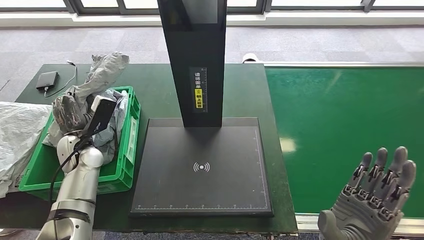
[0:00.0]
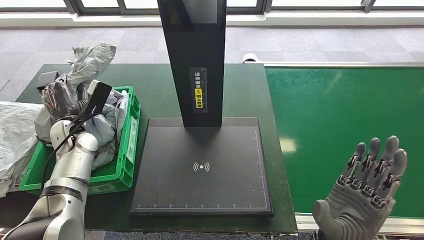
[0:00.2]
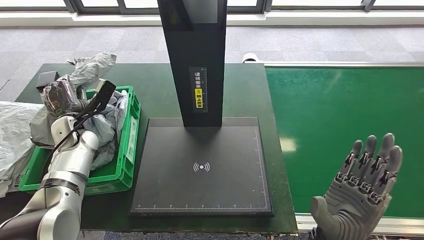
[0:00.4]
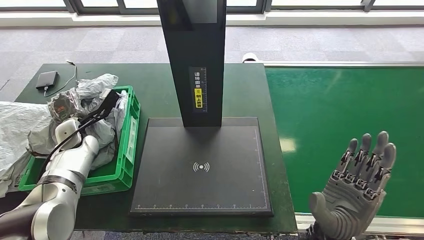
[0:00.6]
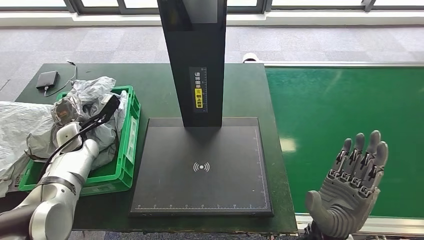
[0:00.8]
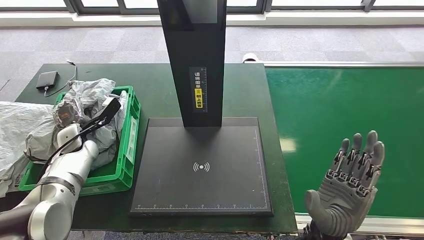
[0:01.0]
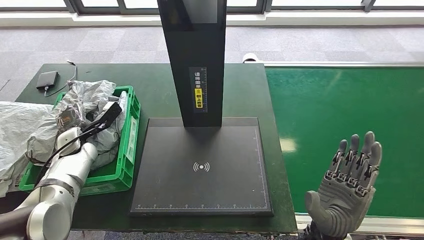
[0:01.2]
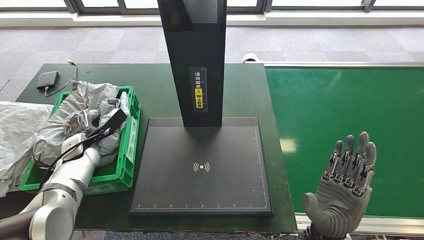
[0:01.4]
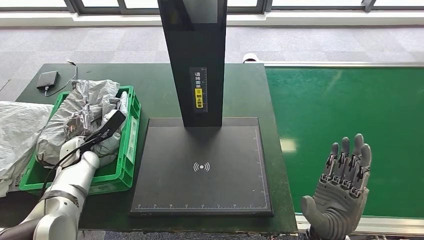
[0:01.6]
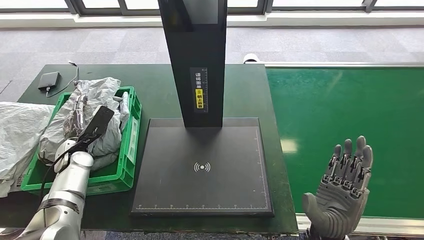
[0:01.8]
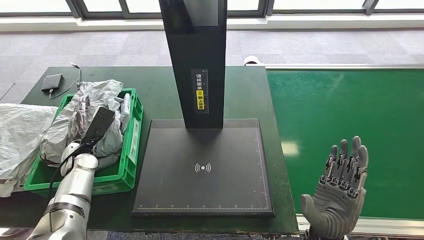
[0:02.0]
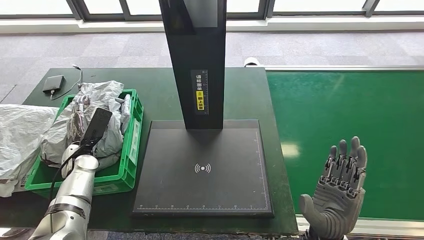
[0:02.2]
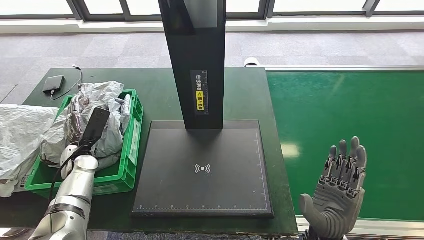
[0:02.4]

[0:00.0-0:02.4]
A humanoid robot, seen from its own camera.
Step, 0.0 to 2.4 s: Place the parcel into the delivery box.
0.0 to 1.2 s: The left hand ends up approximately 5 cm from where it was.

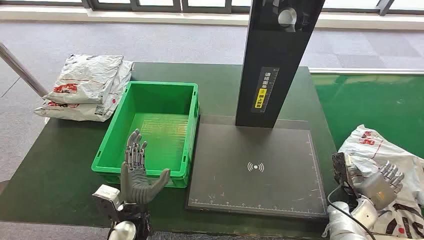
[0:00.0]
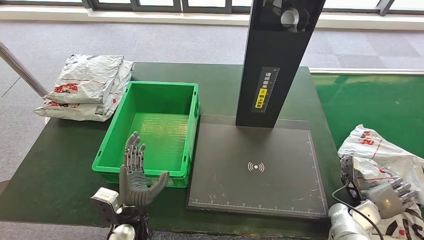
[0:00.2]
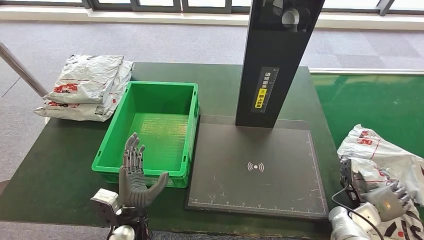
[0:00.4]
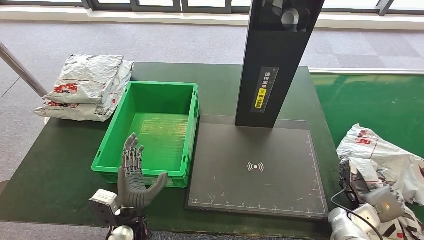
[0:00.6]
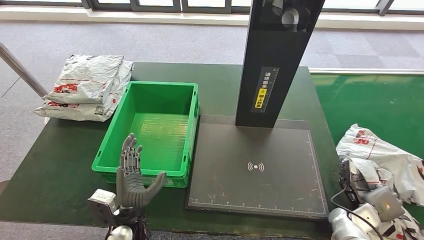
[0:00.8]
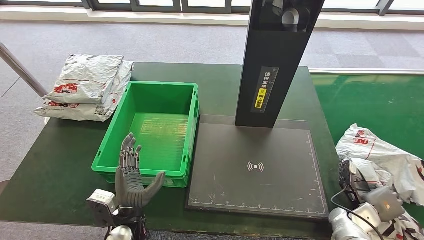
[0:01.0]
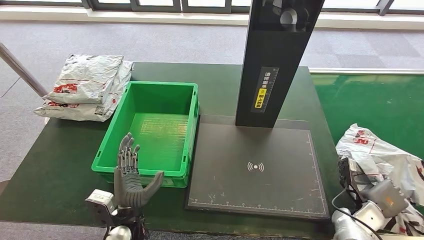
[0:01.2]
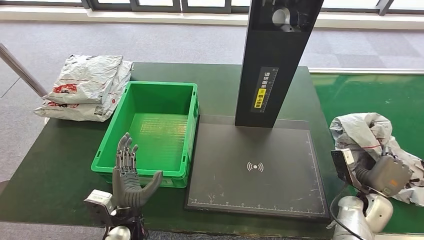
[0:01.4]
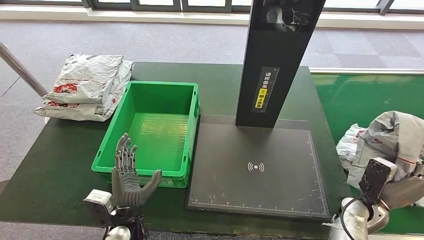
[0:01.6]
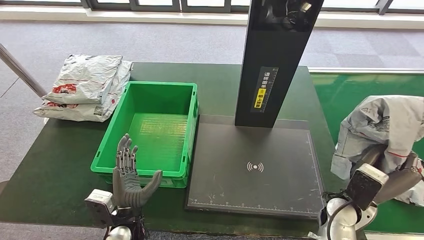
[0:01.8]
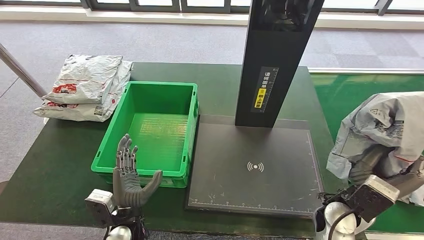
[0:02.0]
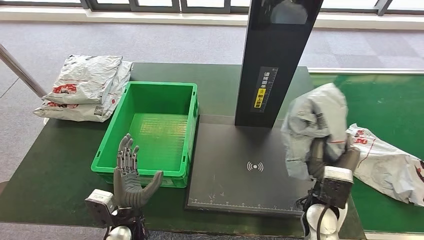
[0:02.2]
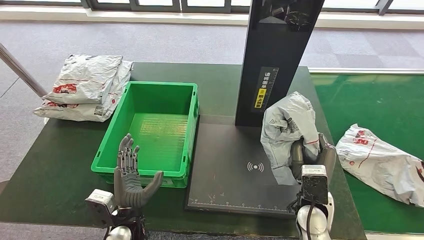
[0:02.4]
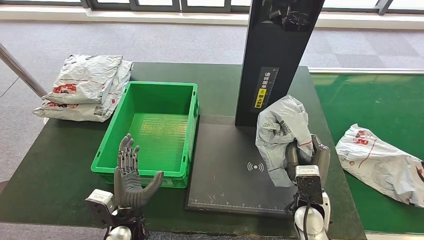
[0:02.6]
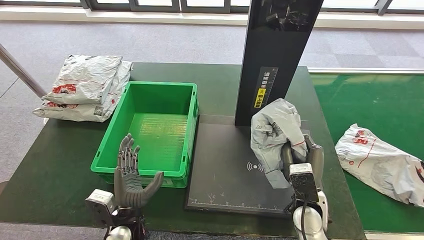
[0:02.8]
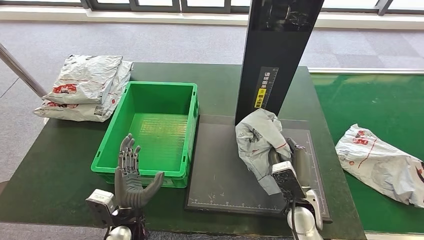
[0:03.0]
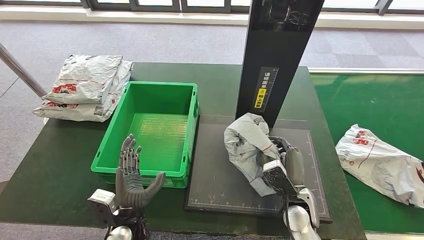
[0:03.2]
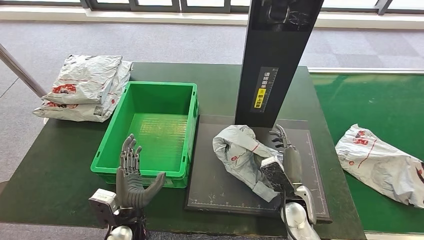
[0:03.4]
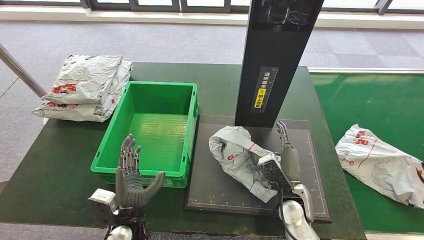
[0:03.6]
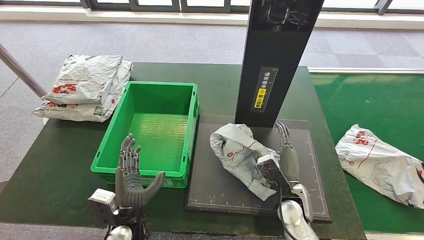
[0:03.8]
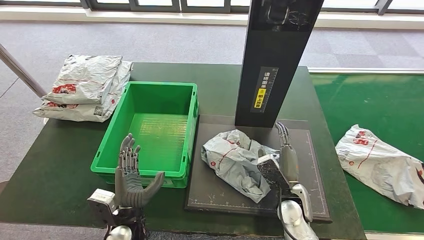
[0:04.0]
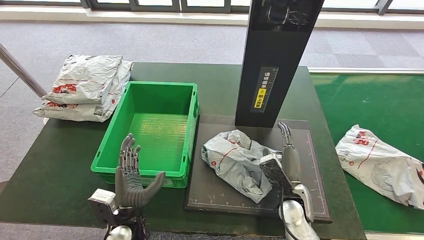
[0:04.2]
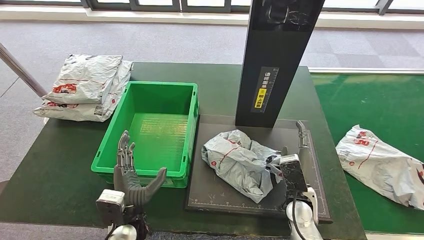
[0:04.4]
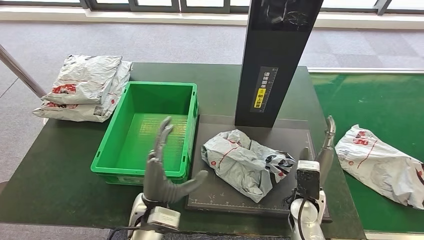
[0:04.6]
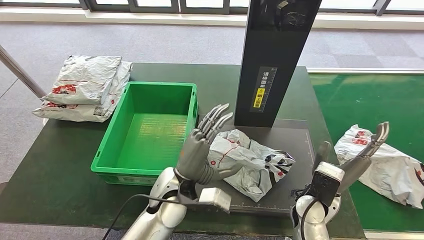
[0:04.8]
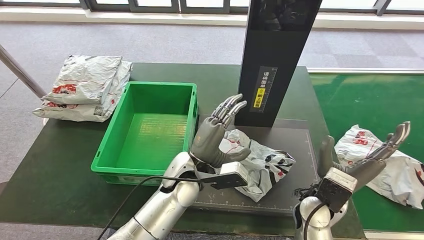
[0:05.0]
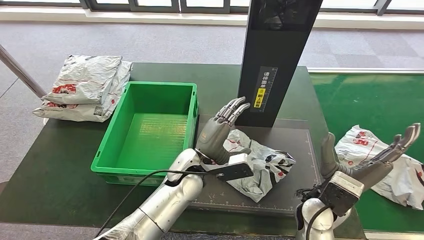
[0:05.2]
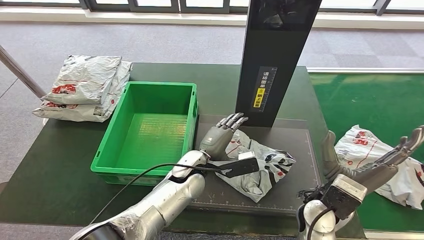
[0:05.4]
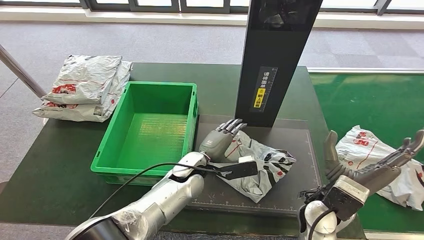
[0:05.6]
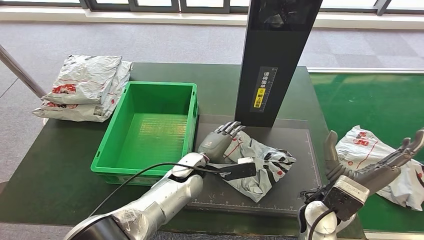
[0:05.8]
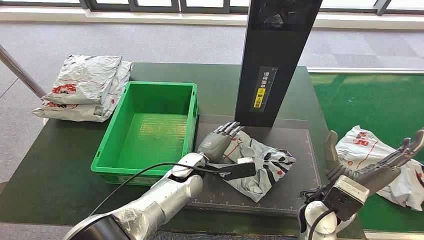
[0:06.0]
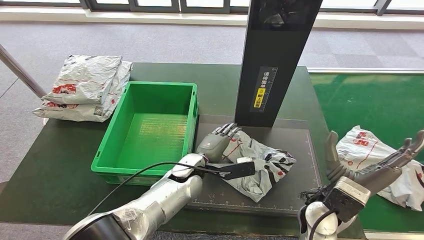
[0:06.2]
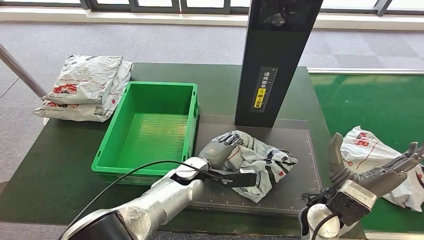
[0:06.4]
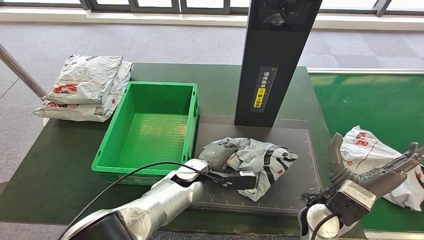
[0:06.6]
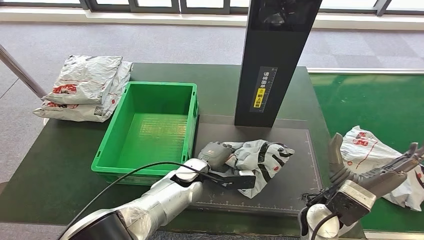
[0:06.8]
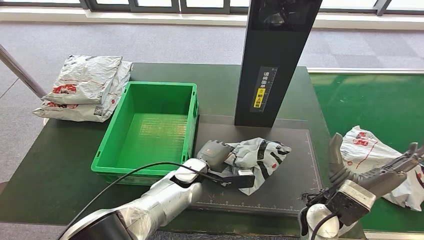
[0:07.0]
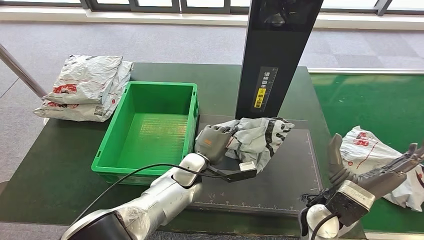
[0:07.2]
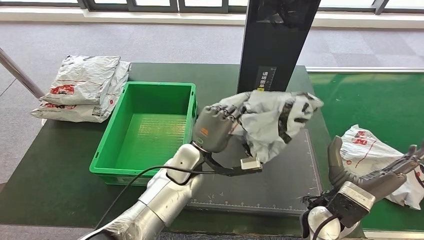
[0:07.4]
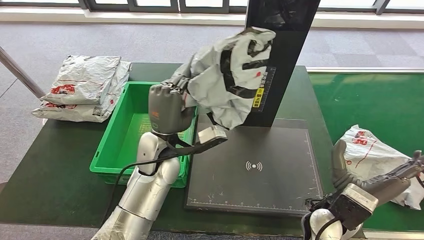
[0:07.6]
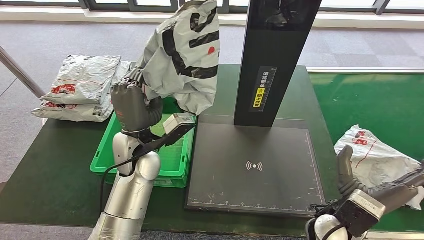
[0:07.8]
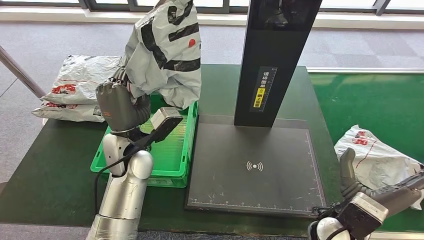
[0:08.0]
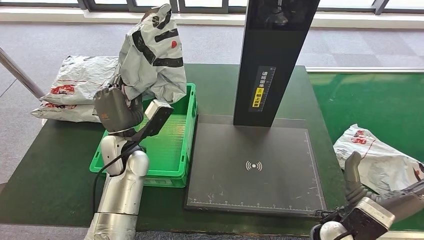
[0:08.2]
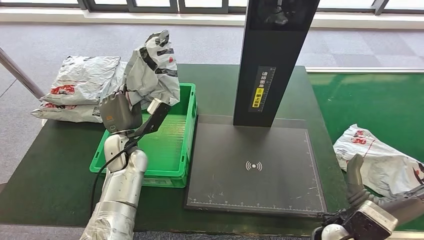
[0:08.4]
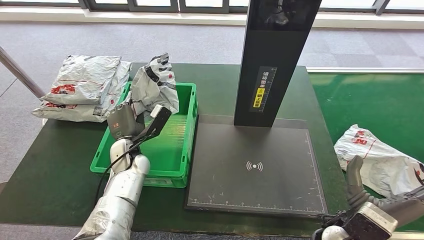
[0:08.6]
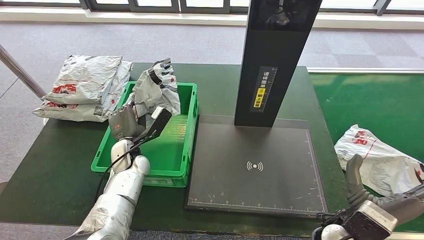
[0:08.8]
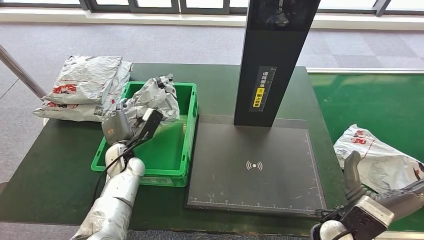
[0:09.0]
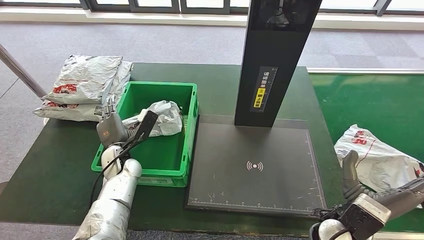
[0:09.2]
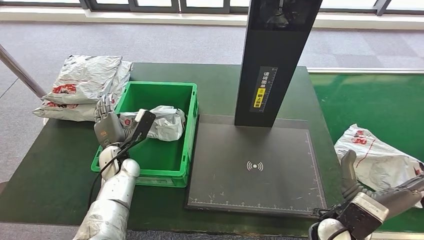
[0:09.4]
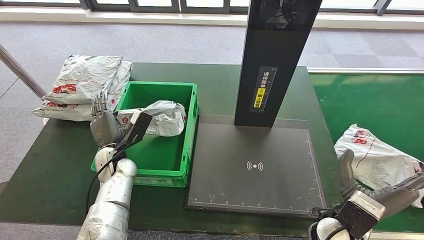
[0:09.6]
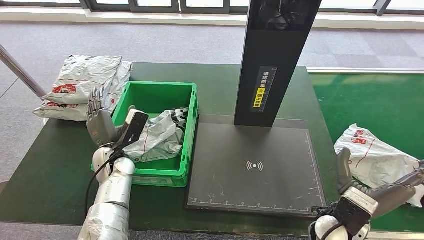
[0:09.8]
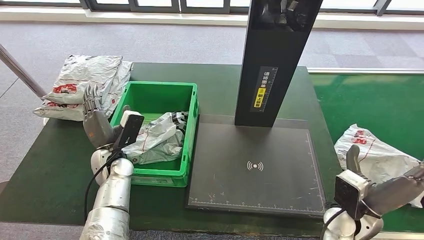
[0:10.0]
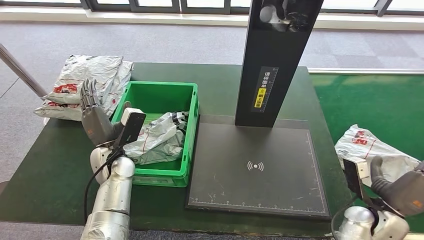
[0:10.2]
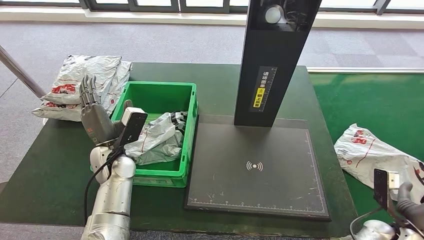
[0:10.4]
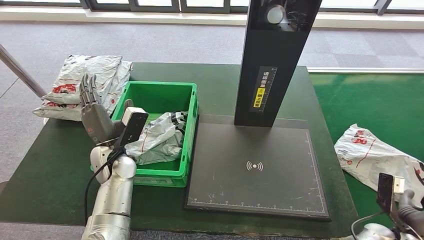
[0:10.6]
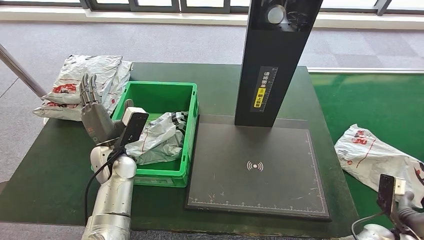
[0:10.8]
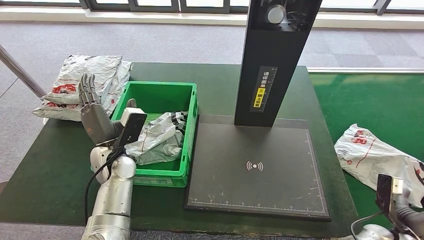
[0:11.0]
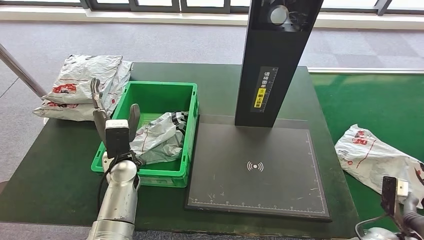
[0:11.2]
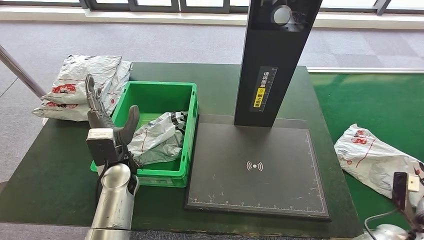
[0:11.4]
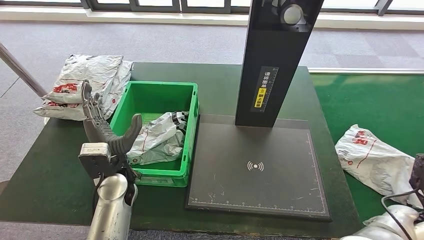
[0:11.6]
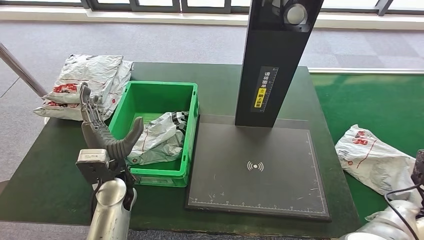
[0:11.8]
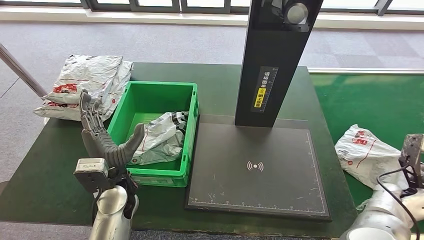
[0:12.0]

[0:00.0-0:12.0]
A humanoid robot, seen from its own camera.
Step, 0.0 to 2.4 s: Take the parcel off the conveyor belt.
Step, 2.6 to 4.2 s: Place the parcel onto the inbound machine.
Step, 4.4 to 7.2 s: Pick up the parcel from the inbound machine.
Step, 7.6 to 9.2 s: Put the parcel inside the courier box.
1.6 to 3.0 s: The right hand shifts approximately 15 cm to the left.
3.0 to 4.4 s: The hands stay close to where they were, moving slightly.
10.4 to 12.0 s: The left hand shifts about 5 cm backward. Meanwhile the right hand moves forward and to the right, approximately 10 cm.

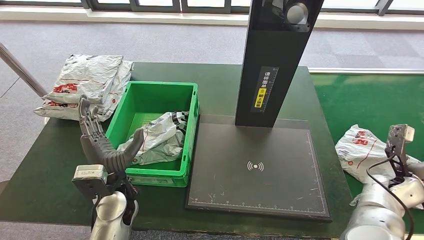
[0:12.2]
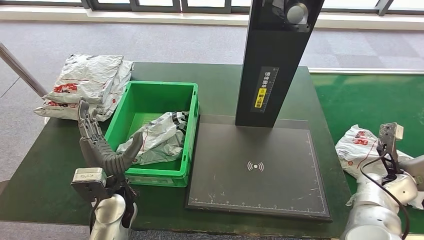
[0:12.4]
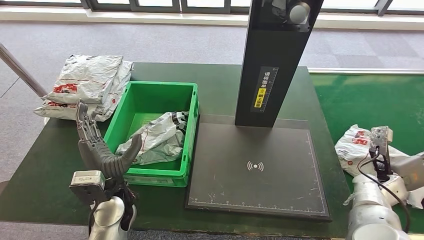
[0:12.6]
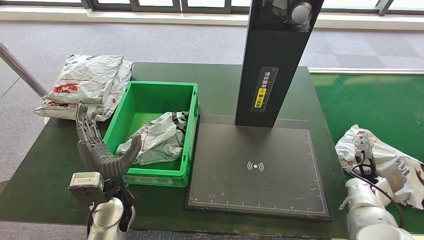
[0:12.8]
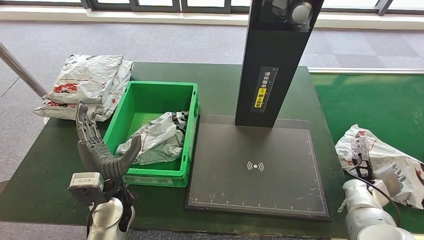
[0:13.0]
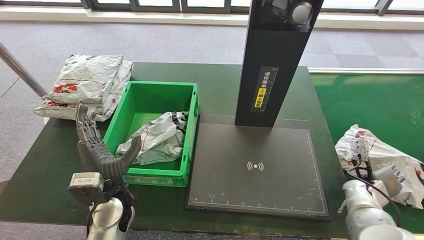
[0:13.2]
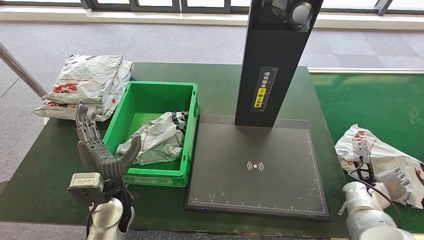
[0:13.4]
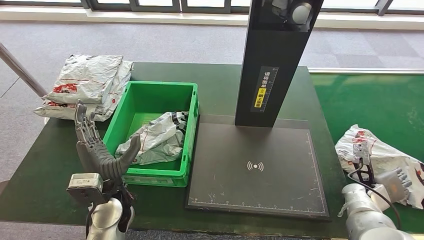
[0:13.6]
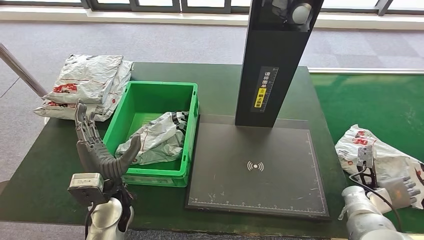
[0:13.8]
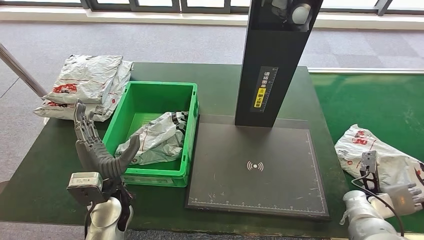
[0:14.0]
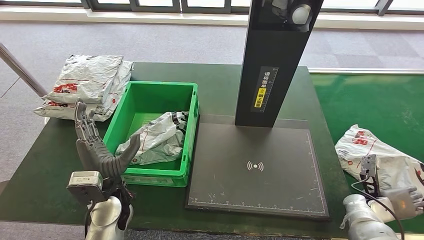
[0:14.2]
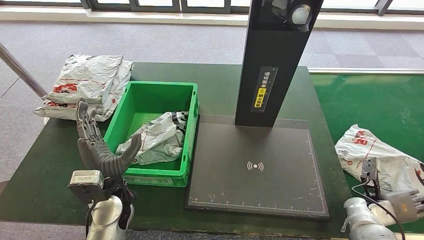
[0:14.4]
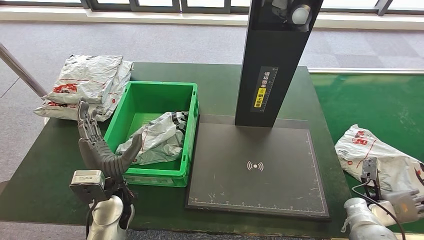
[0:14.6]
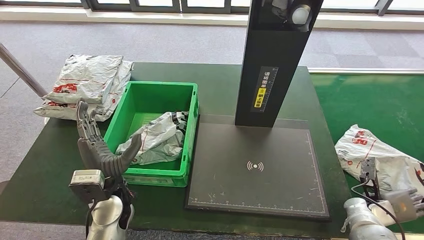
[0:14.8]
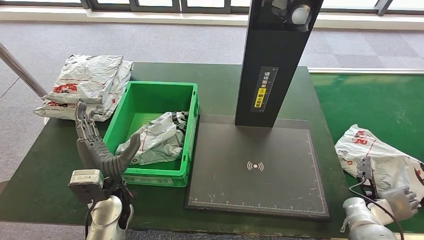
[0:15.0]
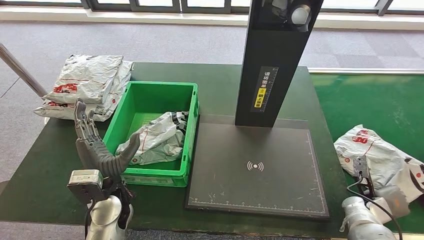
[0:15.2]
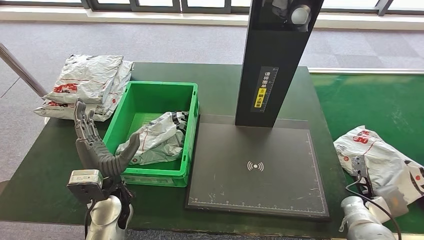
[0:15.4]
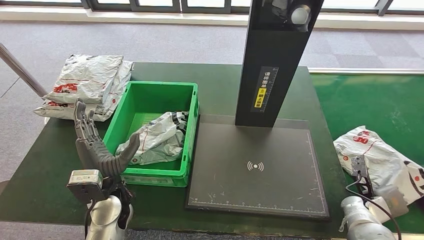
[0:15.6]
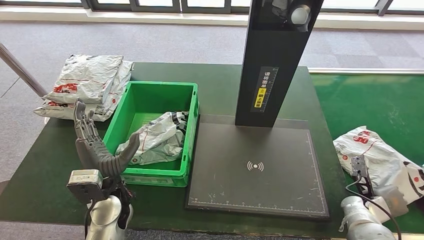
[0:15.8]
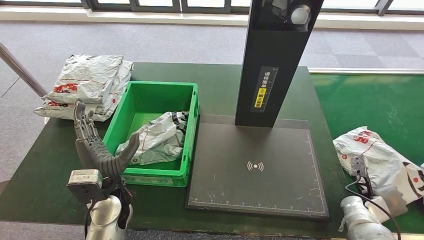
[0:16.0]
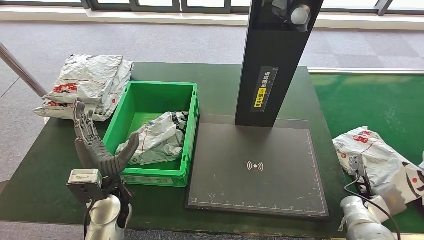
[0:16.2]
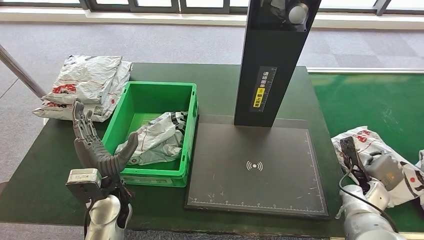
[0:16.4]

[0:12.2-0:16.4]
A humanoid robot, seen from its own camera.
12.2 to 13.6 s: The right hand shifts some 5 cm downward.
13.6 to 15.0 s: The hands stay close to where they were, moving slightly.
